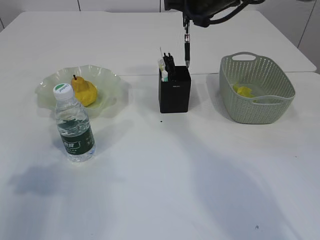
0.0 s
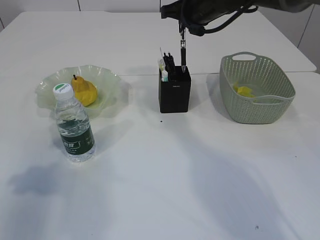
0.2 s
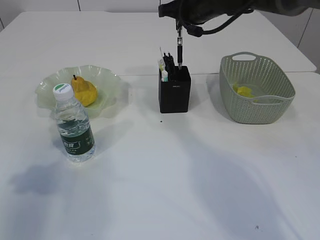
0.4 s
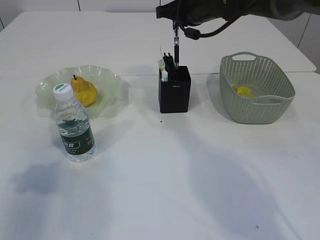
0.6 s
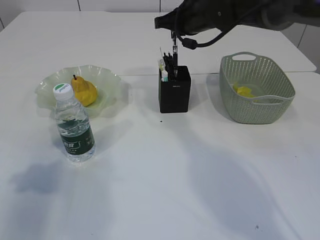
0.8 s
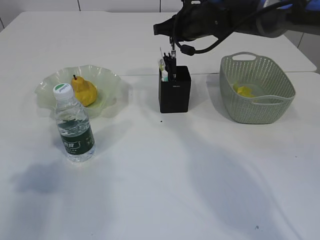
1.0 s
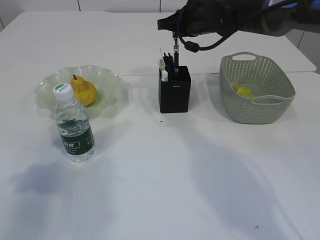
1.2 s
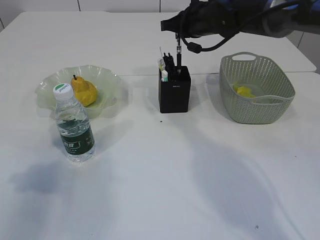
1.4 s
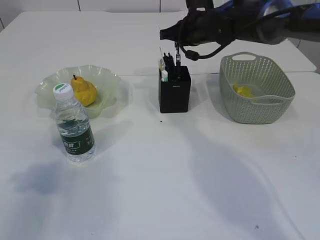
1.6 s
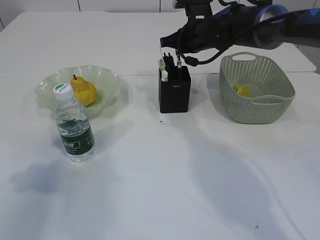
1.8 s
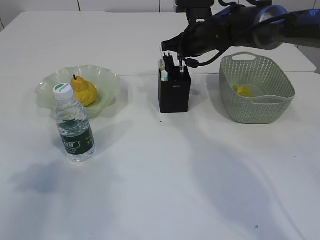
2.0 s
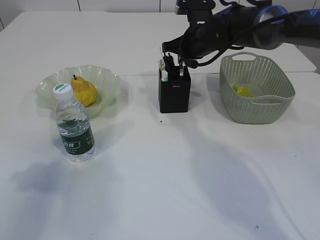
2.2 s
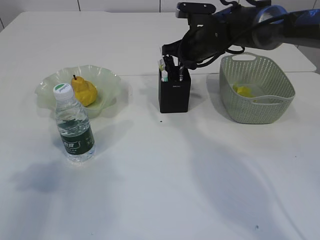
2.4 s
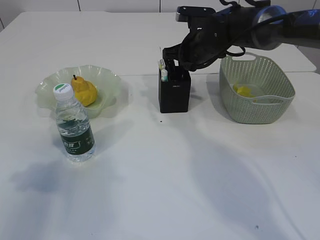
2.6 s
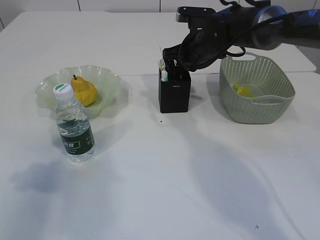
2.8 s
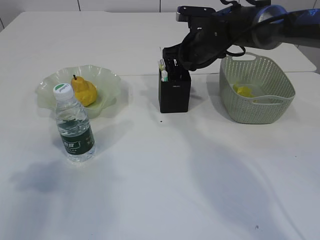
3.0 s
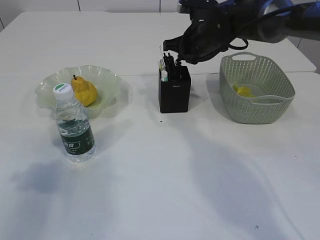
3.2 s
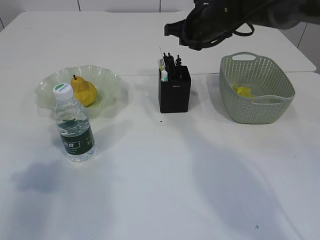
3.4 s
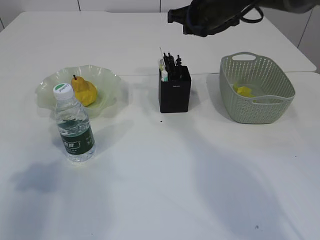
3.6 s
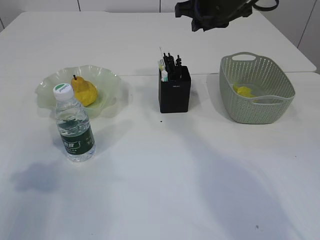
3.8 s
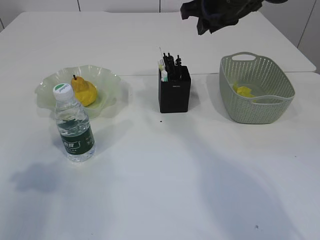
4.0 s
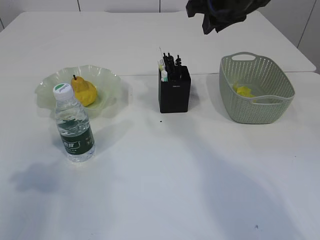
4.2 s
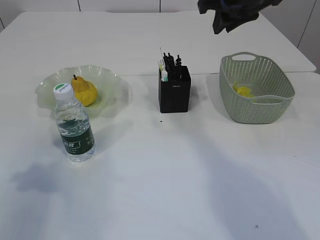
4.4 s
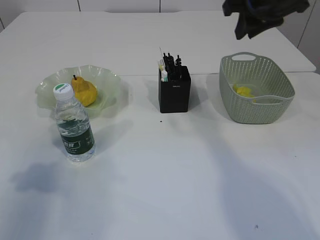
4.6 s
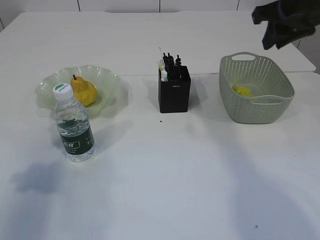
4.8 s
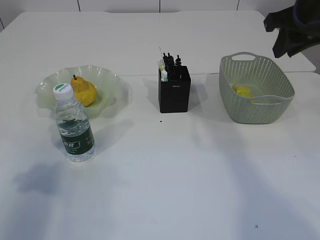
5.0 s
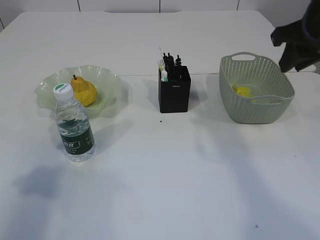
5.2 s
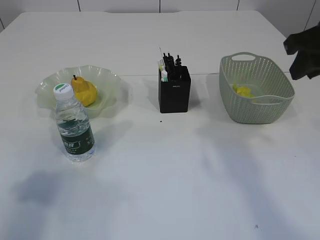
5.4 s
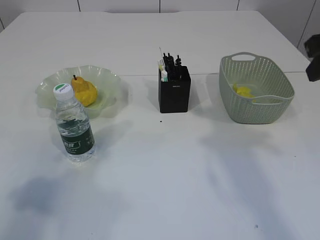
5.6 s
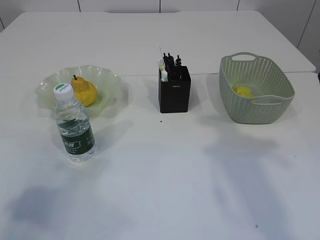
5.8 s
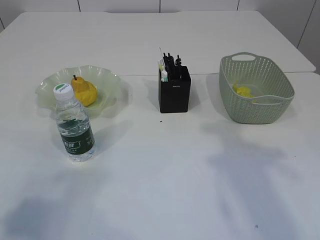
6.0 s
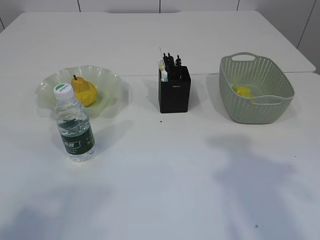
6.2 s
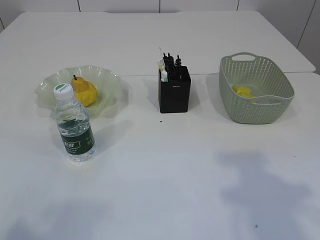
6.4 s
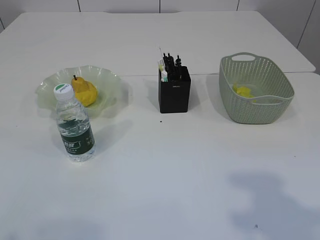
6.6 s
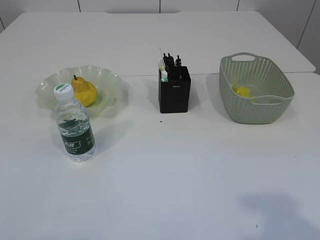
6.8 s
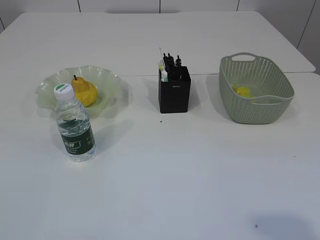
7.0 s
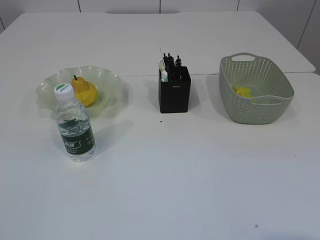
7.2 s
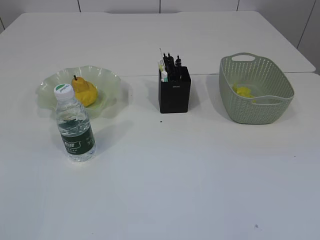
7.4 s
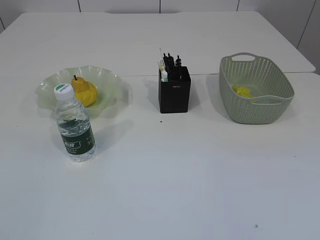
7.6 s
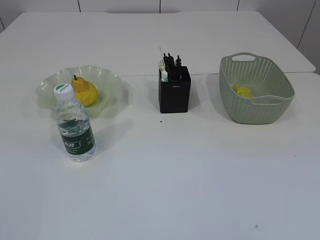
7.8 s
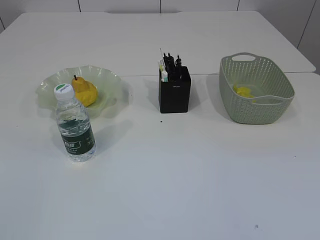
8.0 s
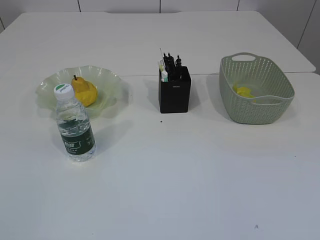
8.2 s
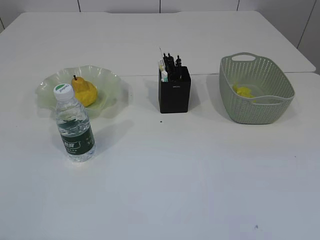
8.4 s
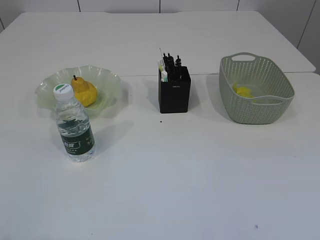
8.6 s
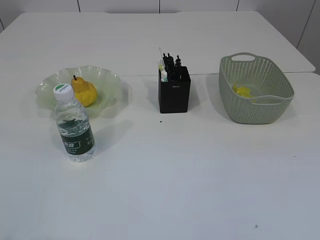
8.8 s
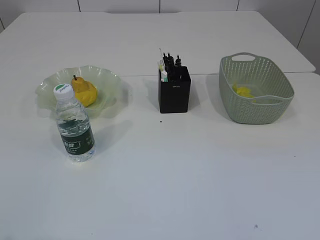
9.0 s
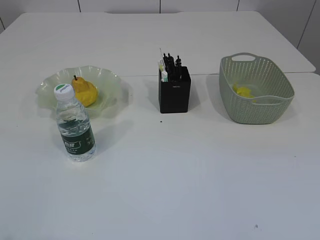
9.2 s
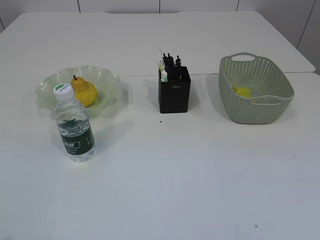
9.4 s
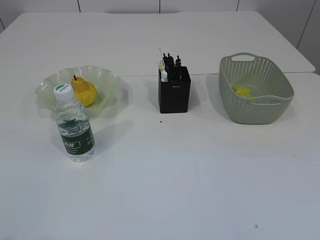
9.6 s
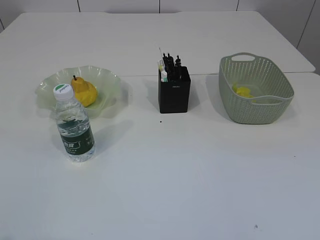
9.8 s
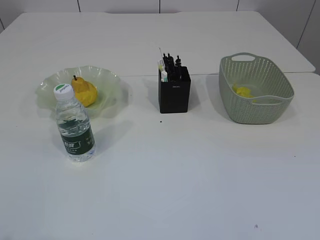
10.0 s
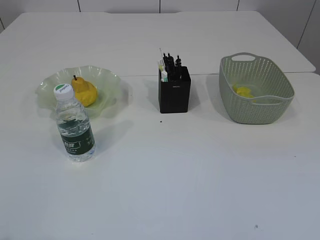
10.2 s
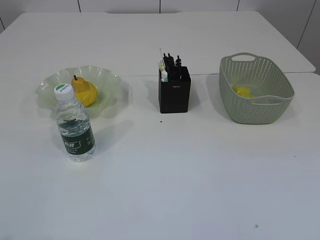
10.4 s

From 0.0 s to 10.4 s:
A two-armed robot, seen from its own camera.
Step, from 0.0 s to 3.4 s: Place the pen into the pen holder.
From 0.0 s to 1.4 s: The right gripper is displaced downward by about 5 cm.
From 1.4 s to 3.0 s: The right gripper heads downward, covering roughly 5 cm.
From 3.0 s to 4.4 s: The right gripper is displaced upward and backward by roughly 15 cm.
From 4.4 s to 6.0 s: The left gripper goes approximately 15 cm backward and upward, while the right gripper shifts approximately 20 cm backward and to the right.
From 6.0 s to 7.4 s: The left gripper goes about 15 cm backward.
From 9.0 s to 10.4 s: The two grippers keep their place.
